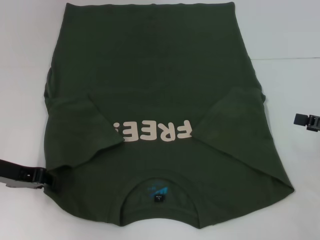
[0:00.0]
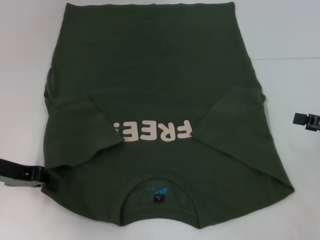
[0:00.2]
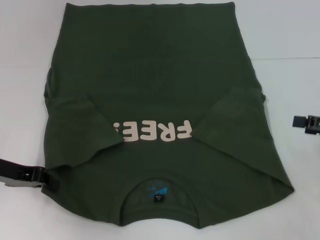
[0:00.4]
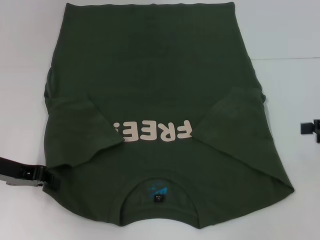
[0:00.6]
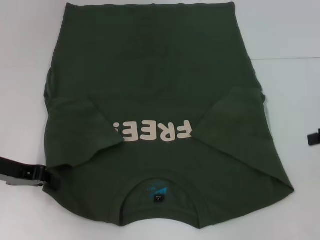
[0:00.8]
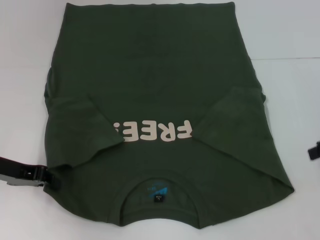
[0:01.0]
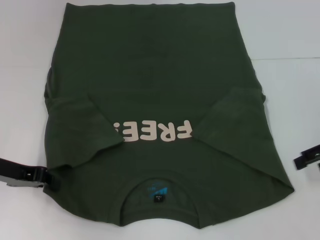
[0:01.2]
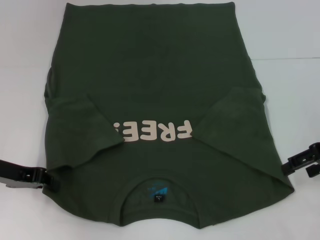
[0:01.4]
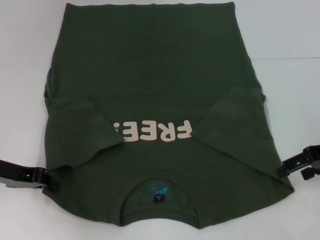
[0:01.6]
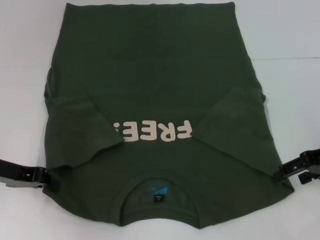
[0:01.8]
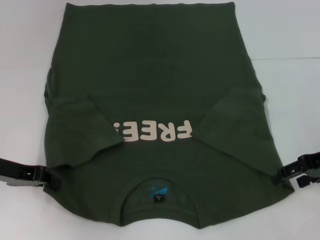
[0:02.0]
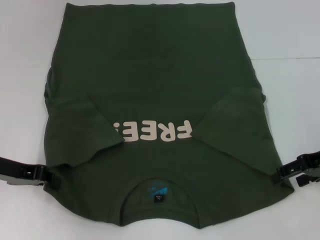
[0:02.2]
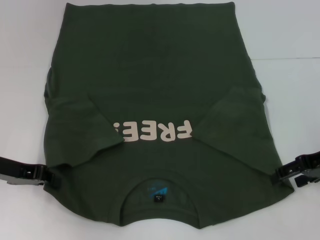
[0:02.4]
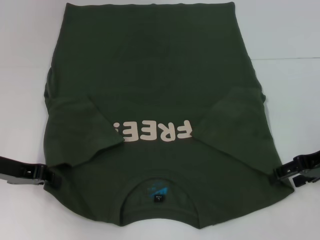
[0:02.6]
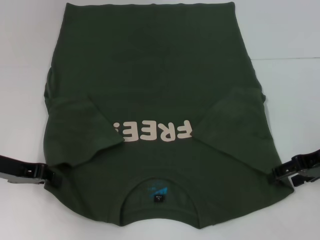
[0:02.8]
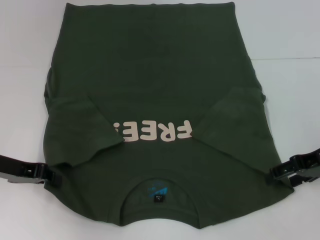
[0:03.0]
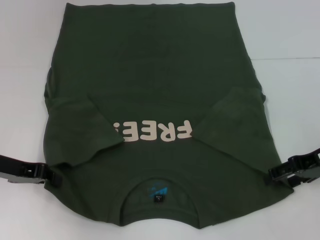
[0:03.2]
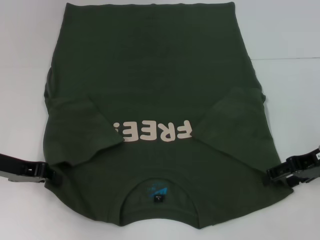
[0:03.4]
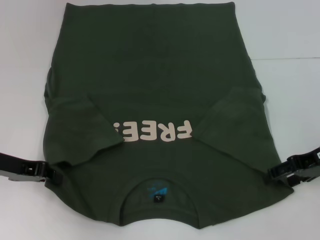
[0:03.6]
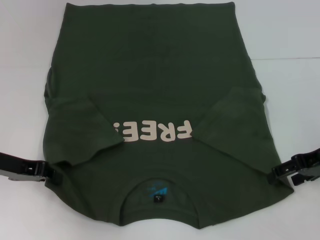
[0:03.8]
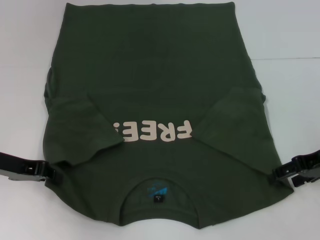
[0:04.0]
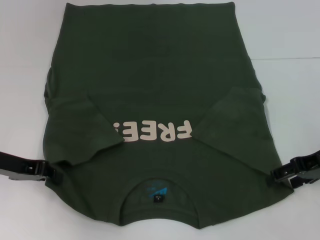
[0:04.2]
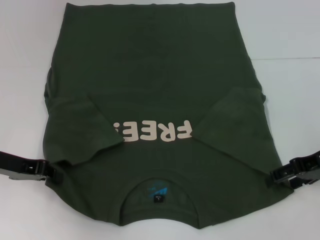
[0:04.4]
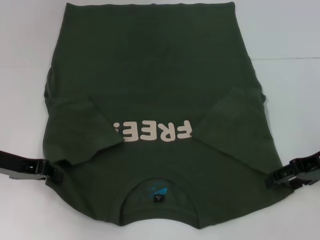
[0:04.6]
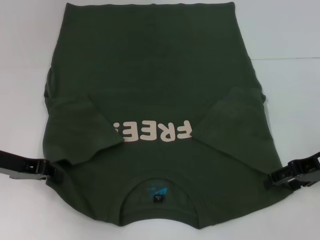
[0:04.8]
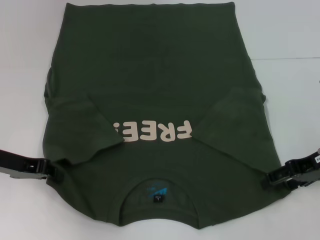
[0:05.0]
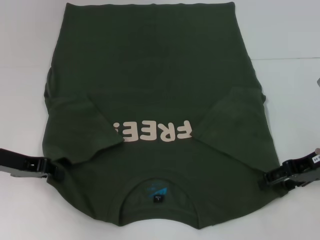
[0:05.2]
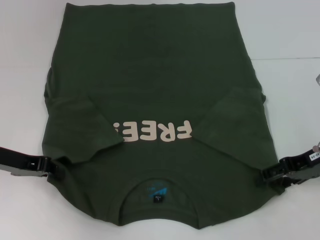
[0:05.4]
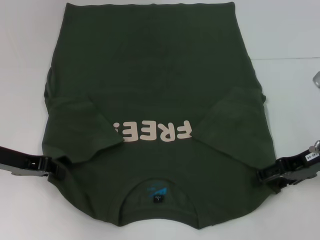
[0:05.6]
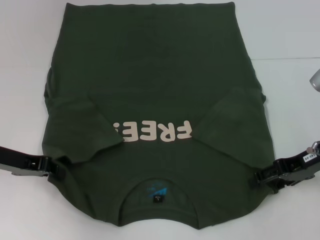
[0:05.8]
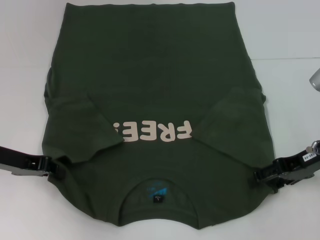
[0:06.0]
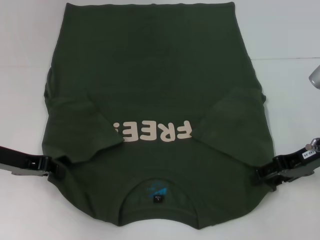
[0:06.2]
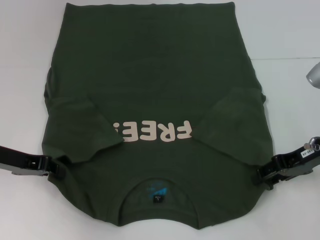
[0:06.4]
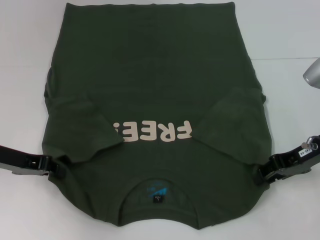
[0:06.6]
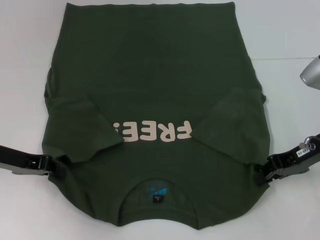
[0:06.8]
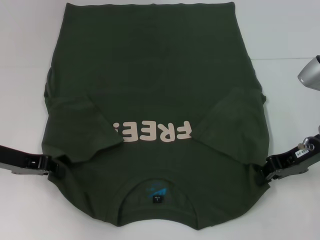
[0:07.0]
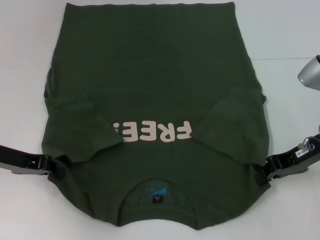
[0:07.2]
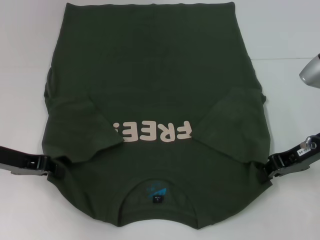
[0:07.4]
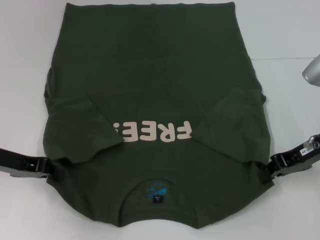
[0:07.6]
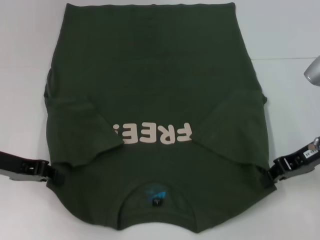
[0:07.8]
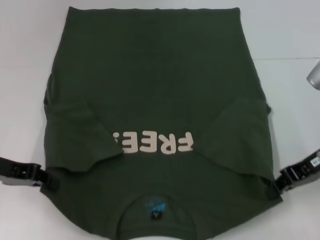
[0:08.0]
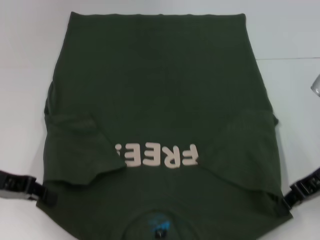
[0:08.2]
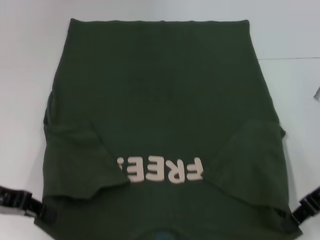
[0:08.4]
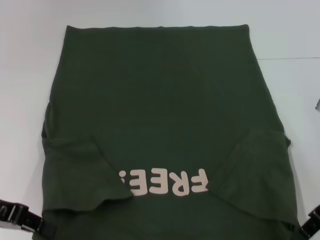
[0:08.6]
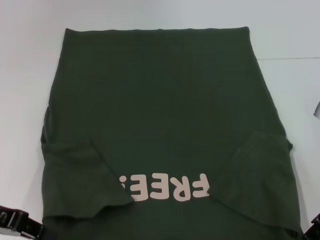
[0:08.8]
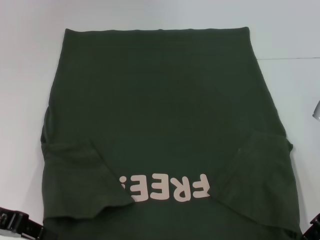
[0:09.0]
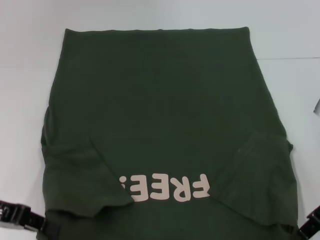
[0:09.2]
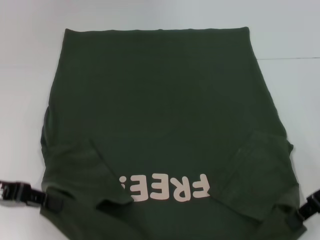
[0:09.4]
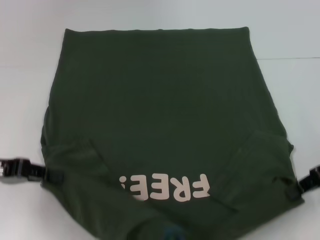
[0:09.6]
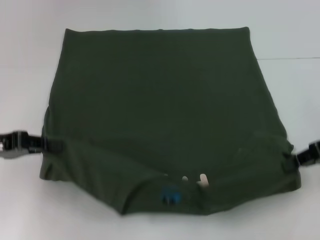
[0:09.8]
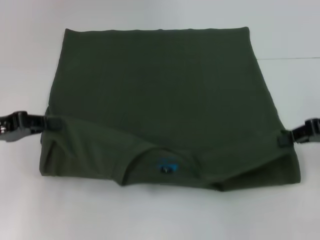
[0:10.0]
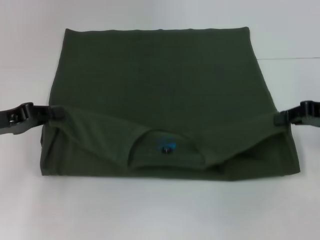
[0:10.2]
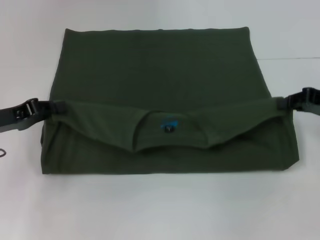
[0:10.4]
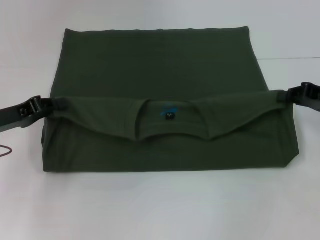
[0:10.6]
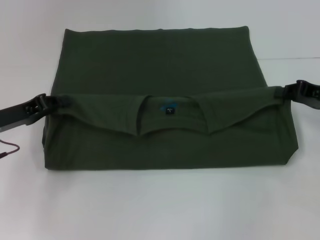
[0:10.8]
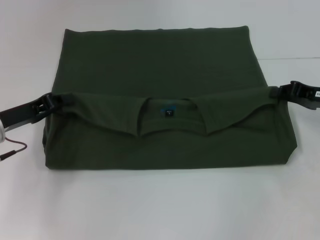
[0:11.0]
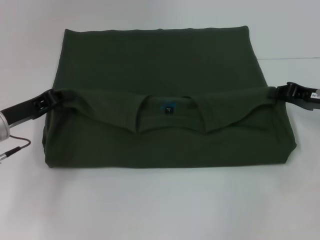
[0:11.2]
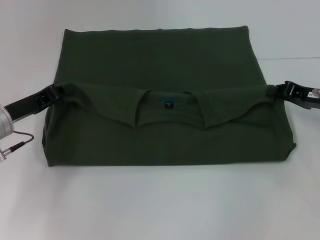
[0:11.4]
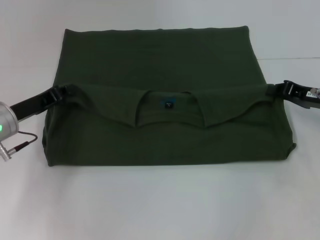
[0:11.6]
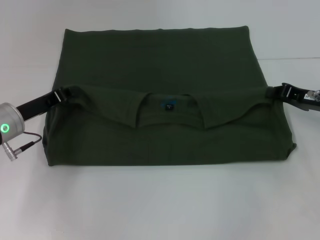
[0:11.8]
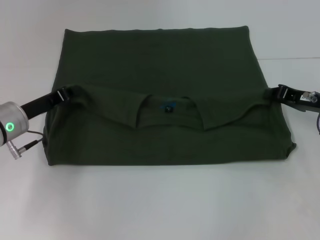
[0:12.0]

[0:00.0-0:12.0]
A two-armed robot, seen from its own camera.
Step, 0:00.2 to 0:07.8: Grab the bottom right corner with your right hand.
0:00.0 to 0:01.6: The right gripper heads to the left and forward, covering some 10 cm.
0:01.6 to 0:03.0: The grippers make only small movements.
0:03.0 to 0:04.4: Neither gripper changes place.
0:04.4 to 0:06.0: There are only small adjustments of the grippers.
0:06.0 to 0:07.6: The right gripper closes up.
0:07.6 to 0:09.0: The left gripper shifts about 5 cm backward.
0:09.0 to 0:10.4: The right gripper is displaced to the right and forward by about 10 cm, while the left gripper moves forward, about 5 cm.
0:10.4 to 0:12.0: The right gripper goes about 5 cm downward, while the left gripper is displaced to the right by approximately 5 cm.

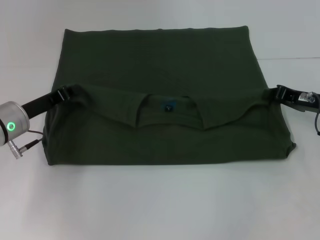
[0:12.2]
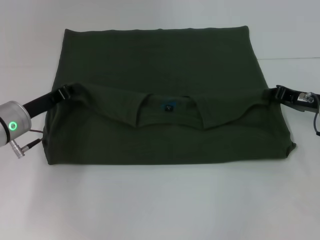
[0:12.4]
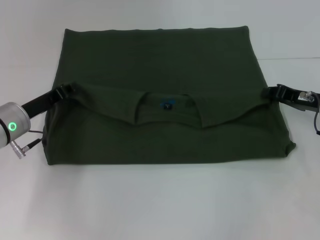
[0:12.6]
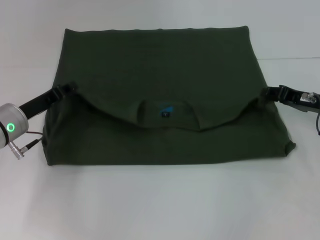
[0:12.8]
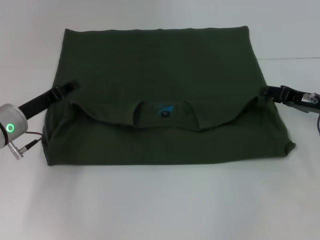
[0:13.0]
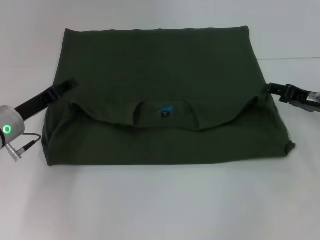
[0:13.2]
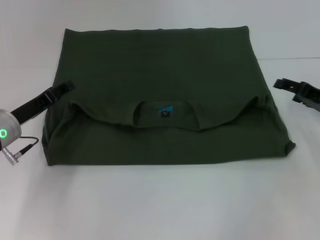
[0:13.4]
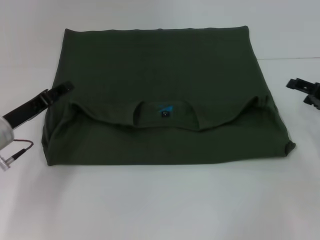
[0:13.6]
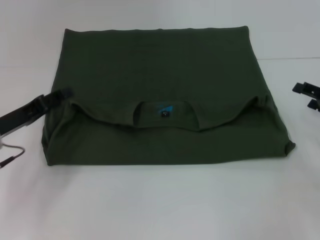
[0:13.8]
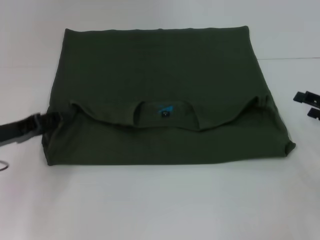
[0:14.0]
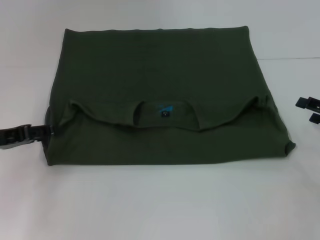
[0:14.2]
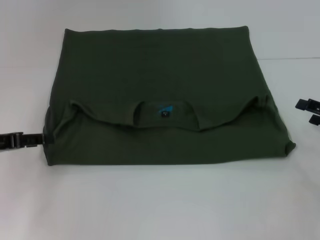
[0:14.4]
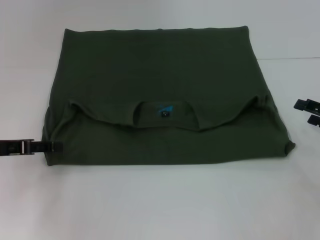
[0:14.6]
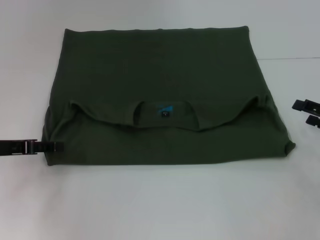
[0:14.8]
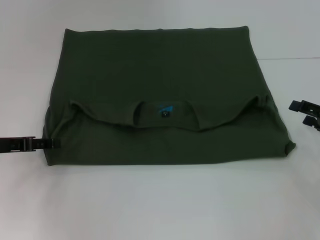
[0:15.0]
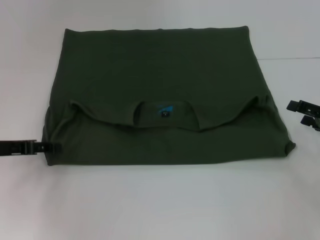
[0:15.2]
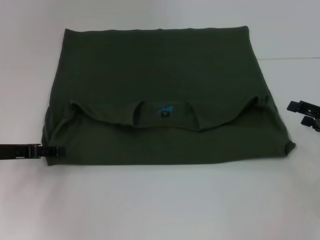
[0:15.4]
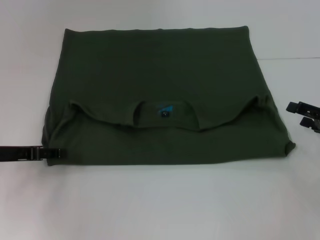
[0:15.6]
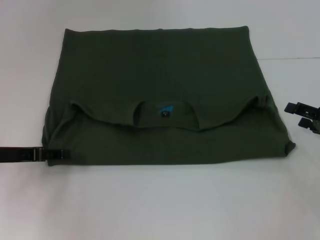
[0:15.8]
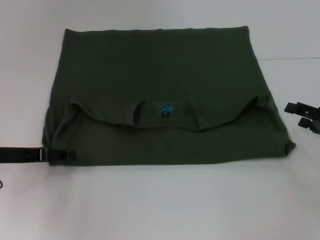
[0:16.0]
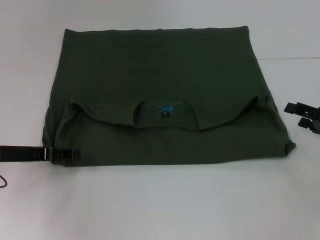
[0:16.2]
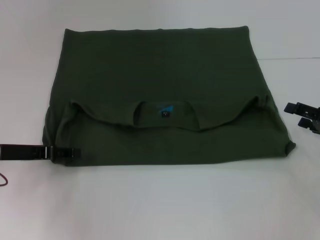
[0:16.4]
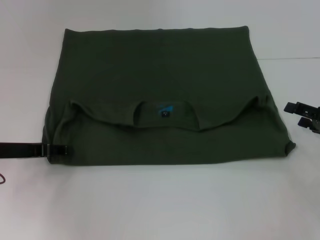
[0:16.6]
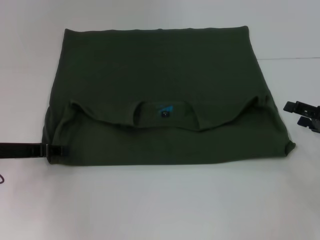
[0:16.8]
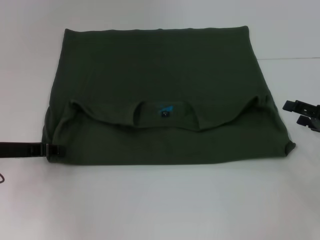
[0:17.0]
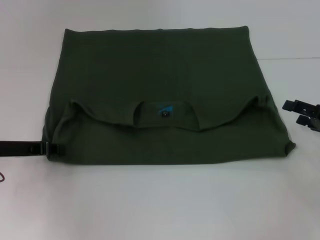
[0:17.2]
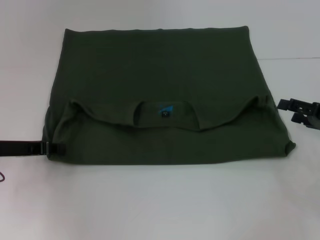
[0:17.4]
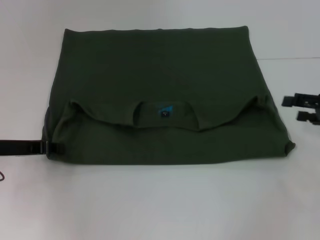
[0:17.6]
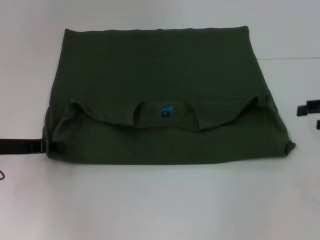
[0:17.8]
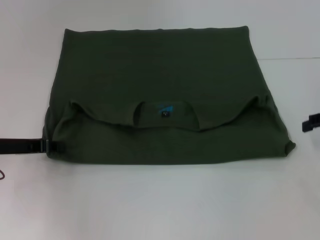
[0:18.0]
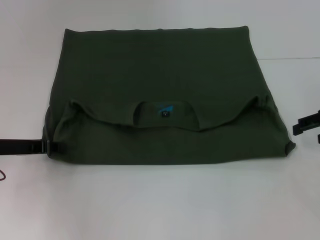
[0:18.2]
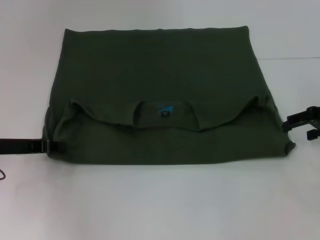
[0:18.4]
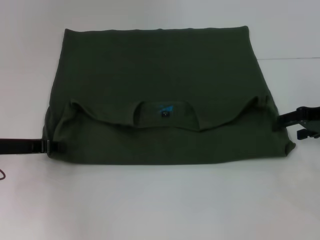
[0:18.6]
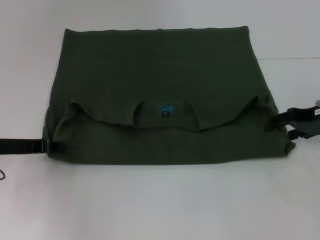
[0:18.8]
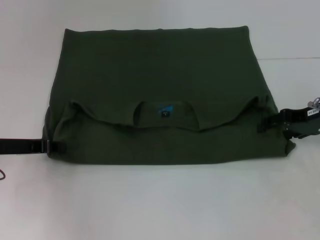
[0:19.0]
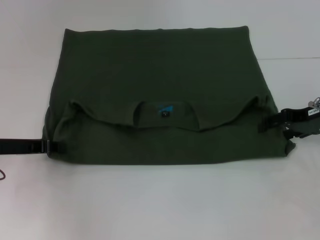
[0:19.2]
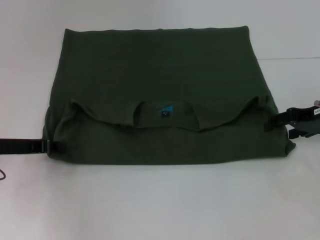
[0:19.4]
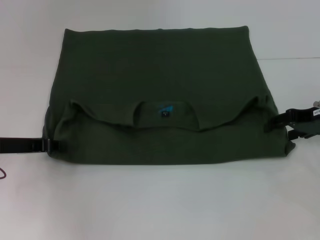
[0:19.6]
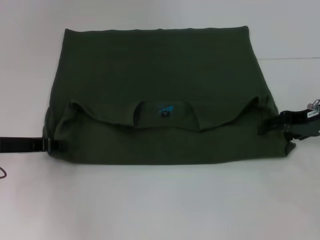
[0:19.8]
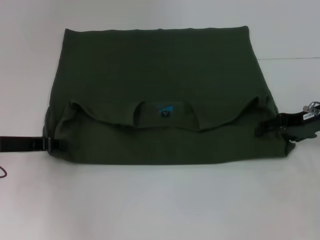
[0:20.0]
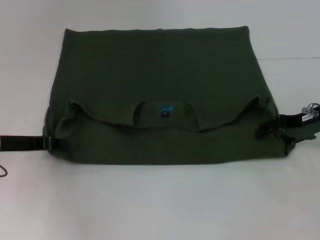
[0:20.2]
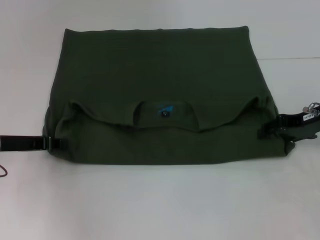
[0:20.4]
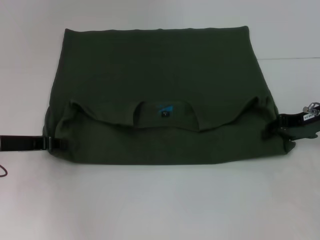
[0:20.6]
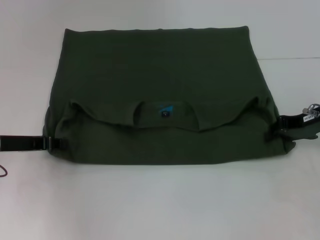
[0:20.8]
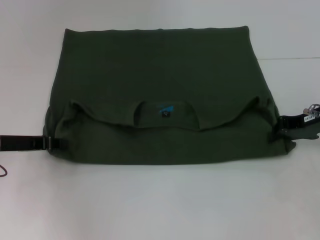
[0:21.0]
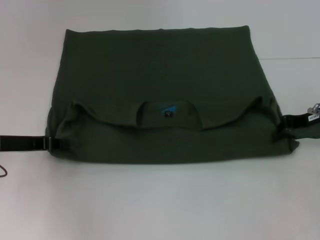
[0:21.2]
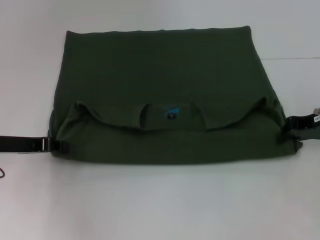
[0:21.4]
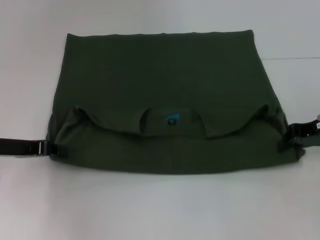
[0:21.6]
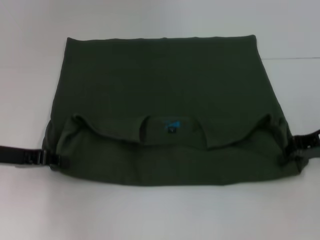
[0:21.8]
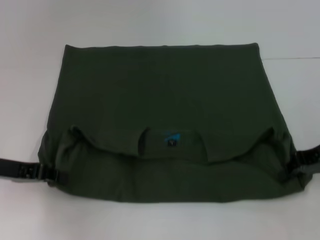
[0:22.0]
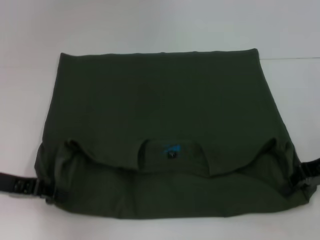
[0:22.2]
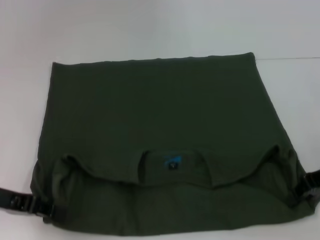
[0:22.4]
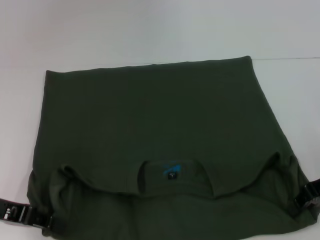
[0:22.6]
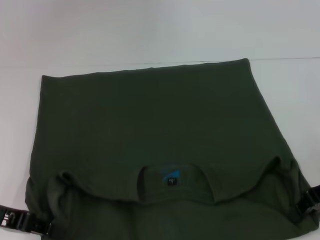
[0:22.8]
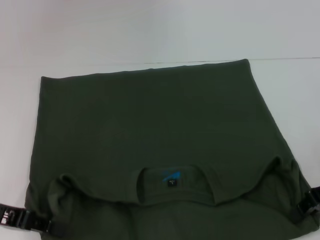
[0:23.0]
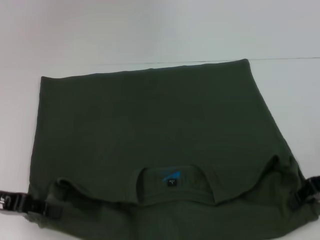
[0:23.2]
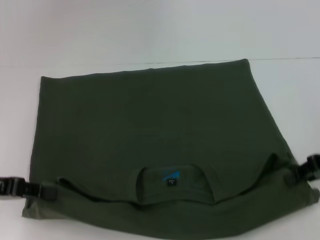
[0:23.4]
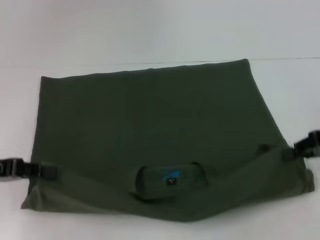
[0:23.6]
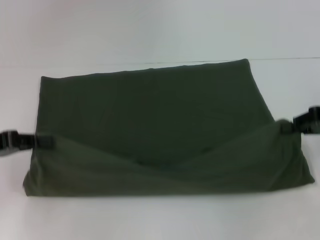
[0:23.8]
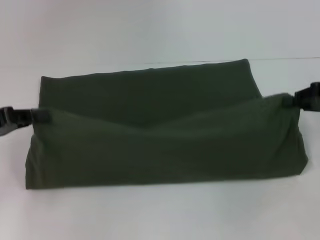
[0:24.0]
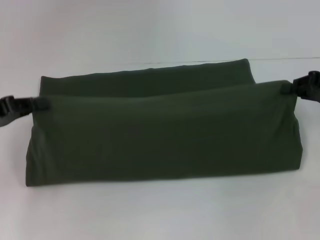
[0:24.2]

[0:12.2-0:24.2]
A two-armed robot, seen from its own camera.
Step, 0:13.8 to 0:23.2: Pull the clothes with your left hand.
Step, 0:13.8 to 0:23.2: Pull the clothes with your right hand.
0:12.2 to 0:13.8: The left gripper opens, while the right gripper moves to the right, approximately 5 cm, and opens.
0:15.2 to 0:16.6: There are only small adjustments of the grippers.
0:16.6 to 0:18.2: The left gripper closes up, while the right gripper moves upward and forward, some 10 cm.
0:18.2 to 0:19.8: The right gripper is displaced to the left by about 5 cm.
0:19.8 to 0:21.2: The right gripper closes.
0:21.2 to 0:22.6: The two grippers go about 5 cm backward.
0:22.6 to 0:24.2: The left gripper changes place by some 5 cm, while the right gripper shifts by some 5 cm.
